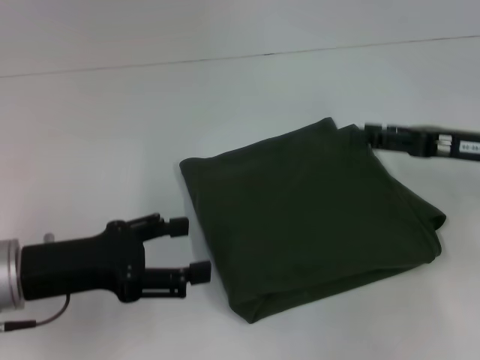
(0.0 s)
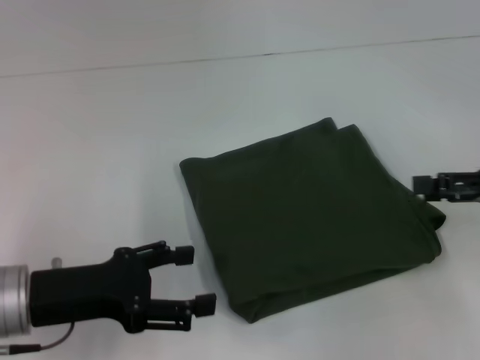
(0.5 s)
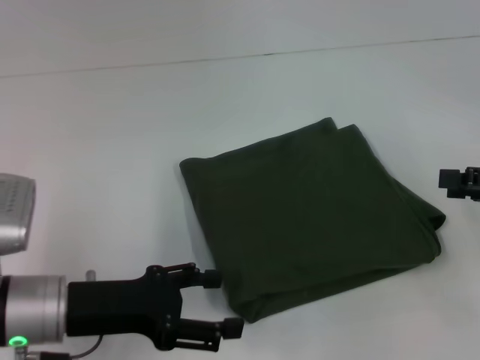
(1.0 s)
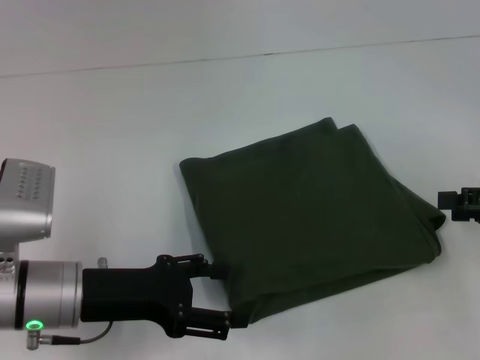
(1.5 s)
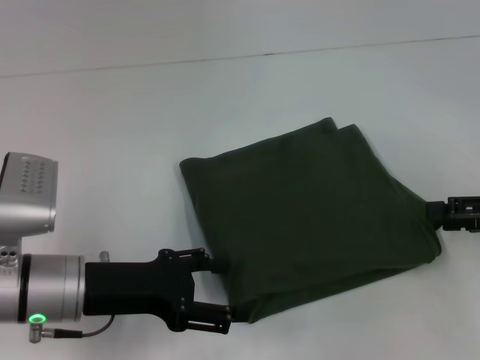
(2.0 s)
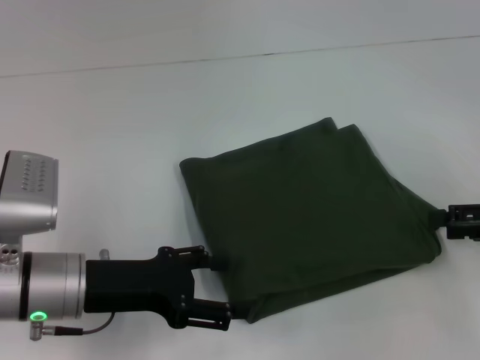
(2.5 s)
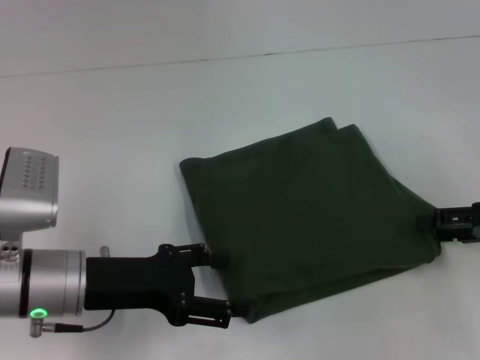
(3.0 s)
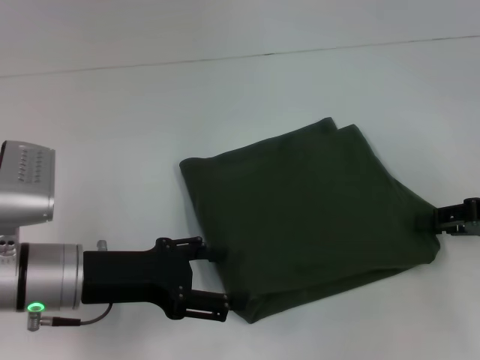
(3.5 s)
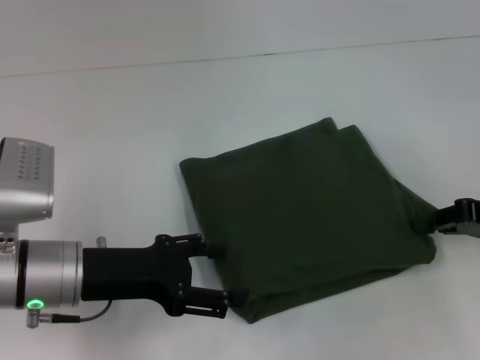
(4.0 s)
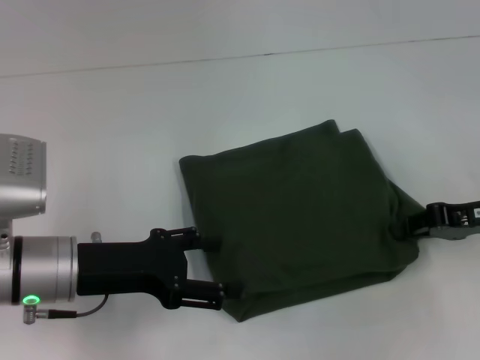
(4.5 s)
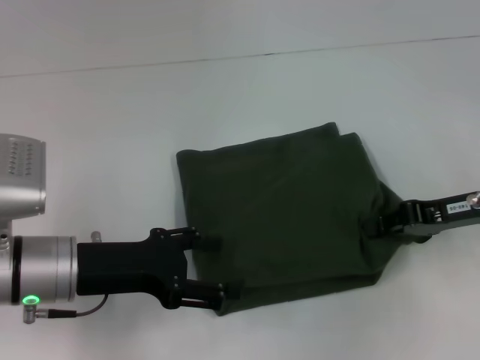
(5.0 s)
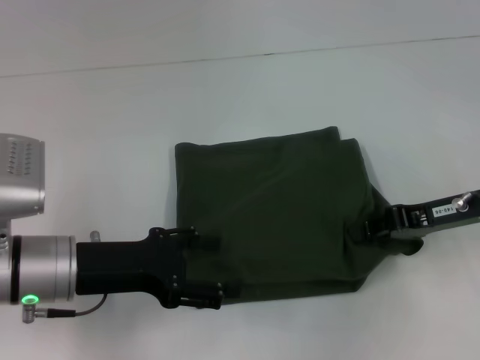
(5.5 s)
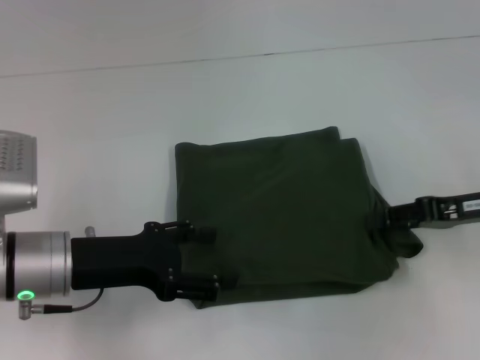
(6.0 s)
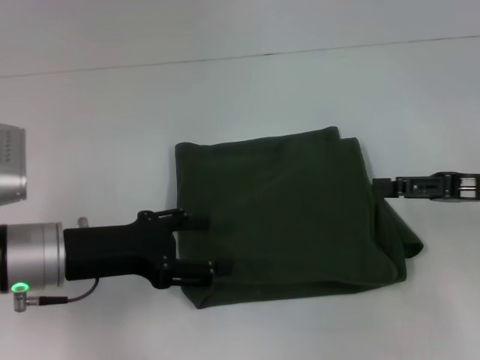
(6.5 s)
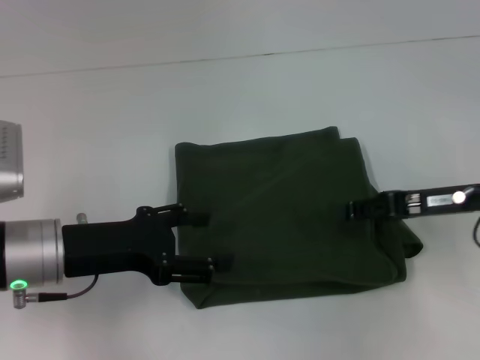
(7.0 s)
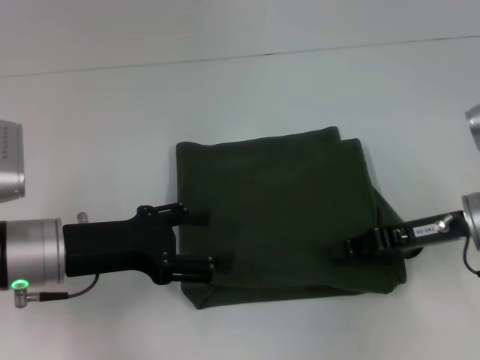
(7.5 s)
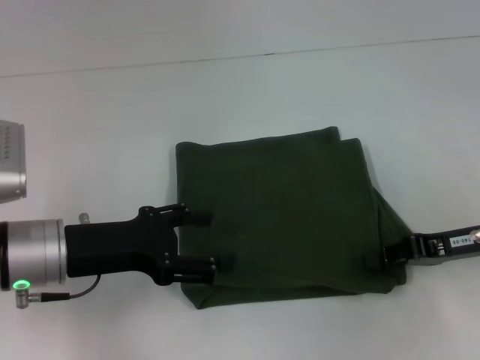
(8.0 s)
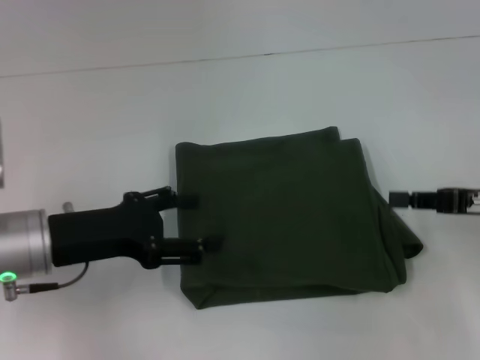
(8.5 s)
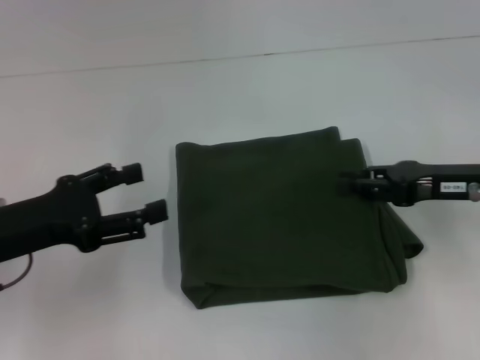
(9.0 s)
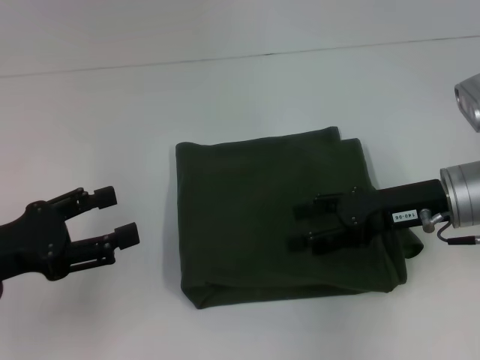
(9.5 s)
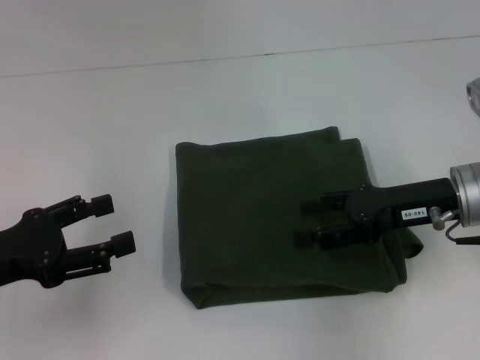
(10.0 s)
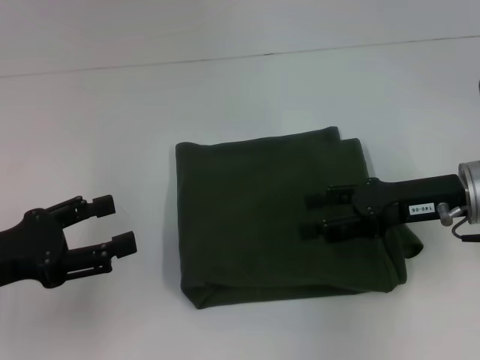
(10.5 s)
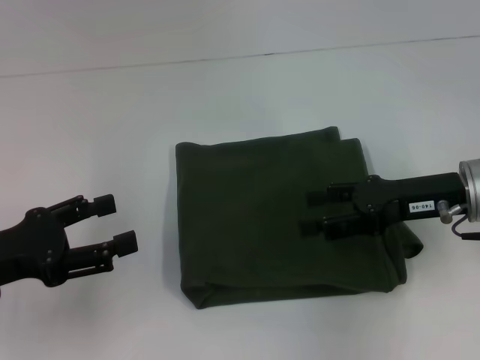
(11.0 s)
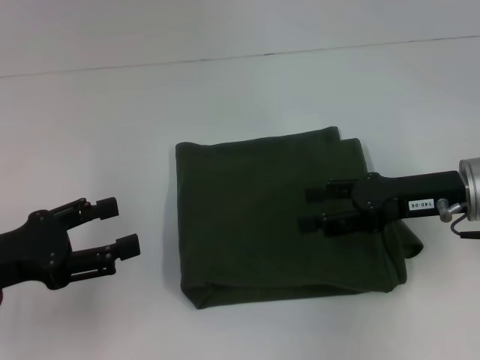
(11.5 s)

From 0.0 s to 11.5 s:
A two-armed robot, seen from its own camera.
From 0.0 s to 2.0 s: The right gripper shifts approximately 5 cm to the right.
From 2.0 s to 4.0 s: The right gripper closes up.
From 6.0 s to 7.5 s: The right gripper changes place by some 5 cm, and opens and closes again.
From 7.5 s to 9.5 s: The left gripper goes roughly 10 cm to the left, while the right gripper travels to the right and back again, some 5 cm each way, and opens up.
From 9.5 s to 11.5 s: There are only small adjustments of the grippers.

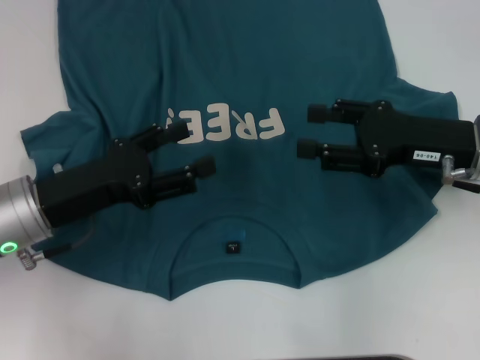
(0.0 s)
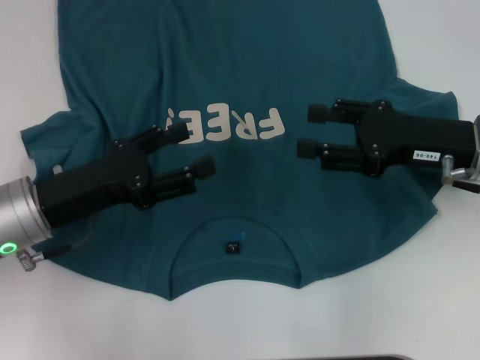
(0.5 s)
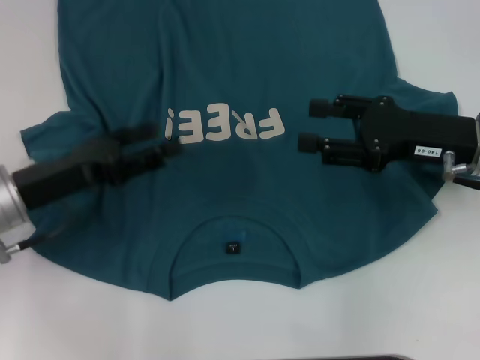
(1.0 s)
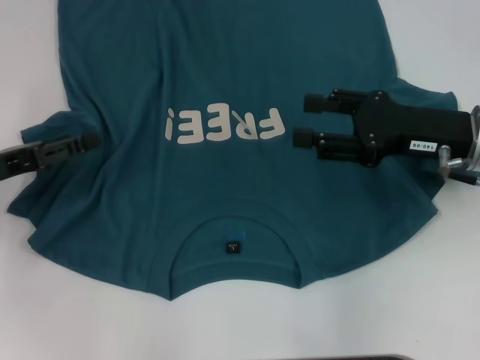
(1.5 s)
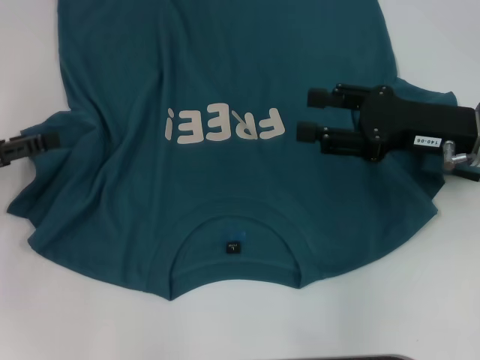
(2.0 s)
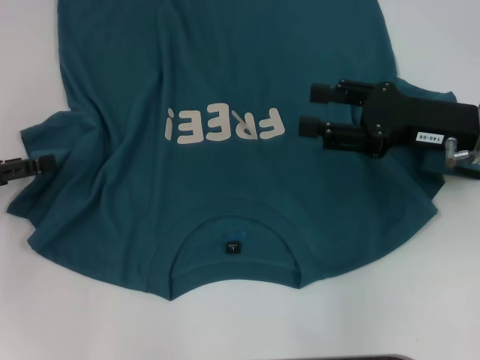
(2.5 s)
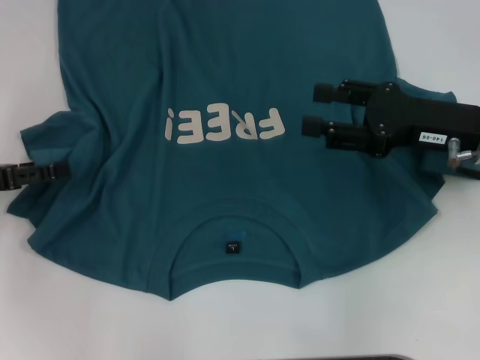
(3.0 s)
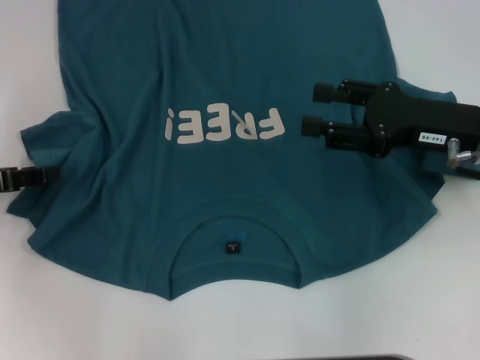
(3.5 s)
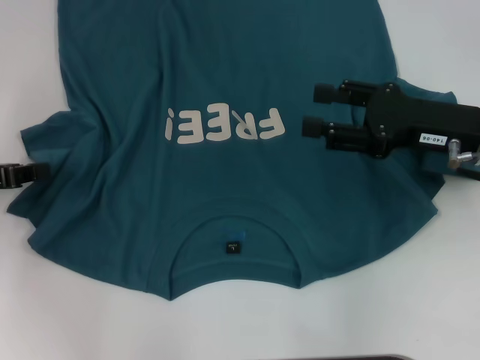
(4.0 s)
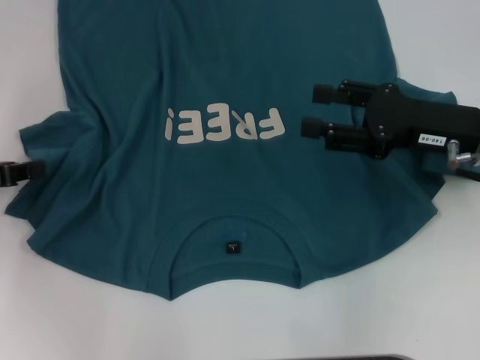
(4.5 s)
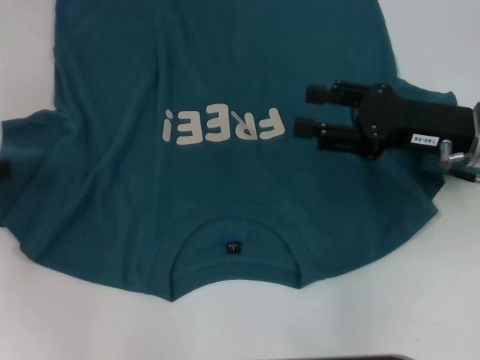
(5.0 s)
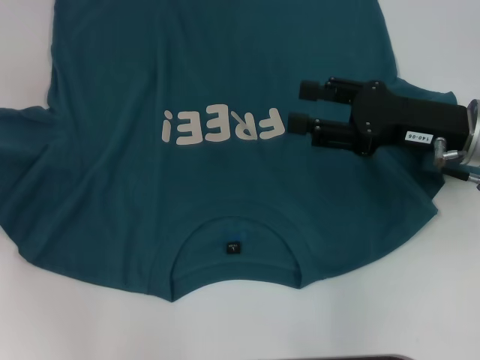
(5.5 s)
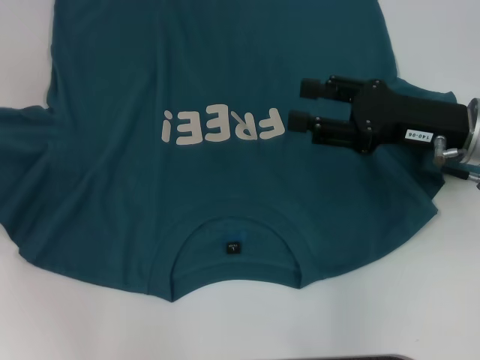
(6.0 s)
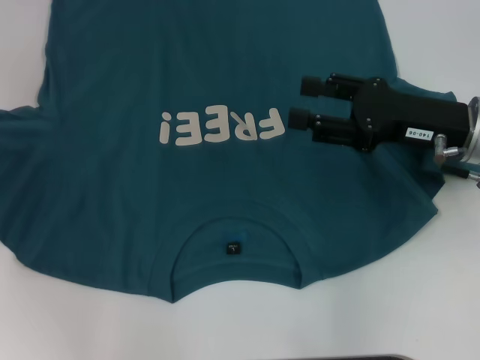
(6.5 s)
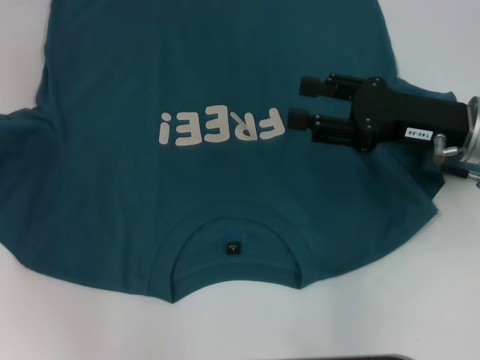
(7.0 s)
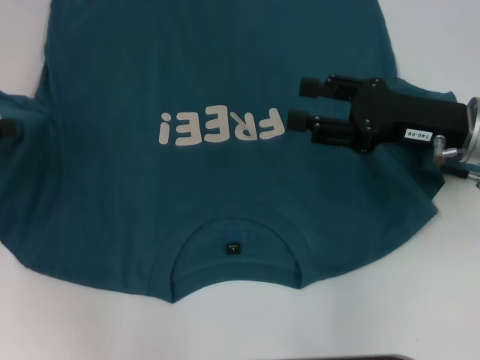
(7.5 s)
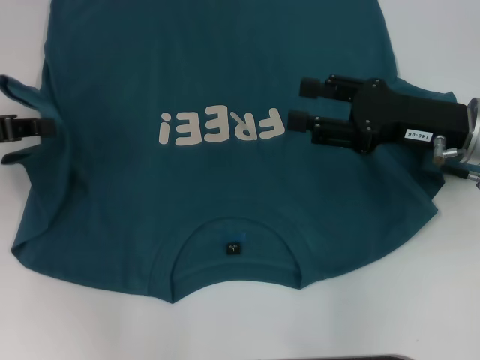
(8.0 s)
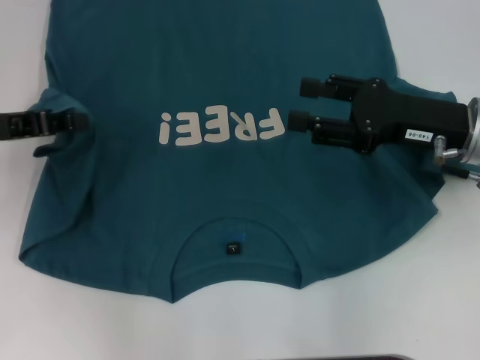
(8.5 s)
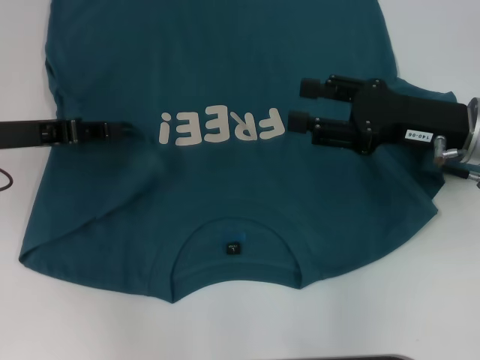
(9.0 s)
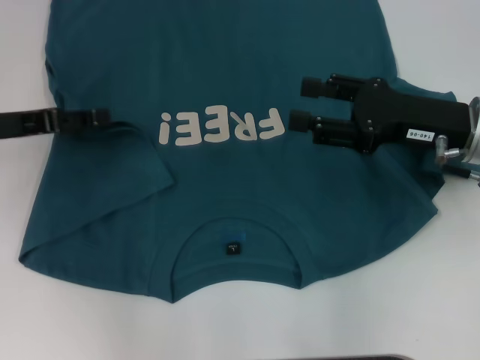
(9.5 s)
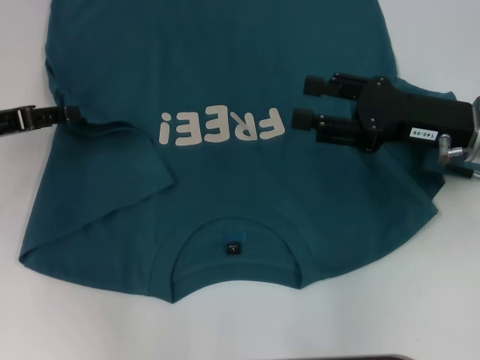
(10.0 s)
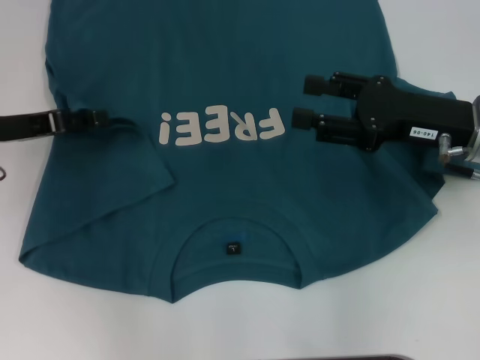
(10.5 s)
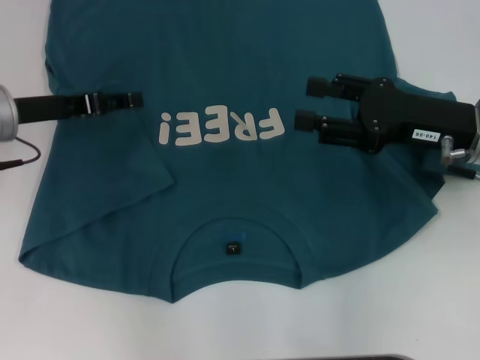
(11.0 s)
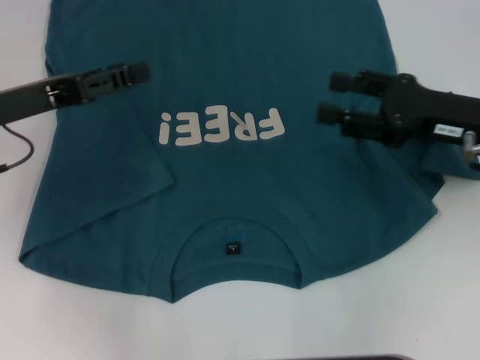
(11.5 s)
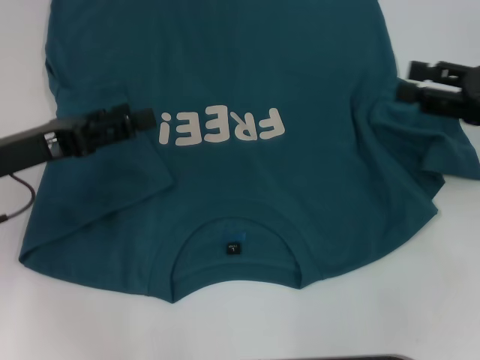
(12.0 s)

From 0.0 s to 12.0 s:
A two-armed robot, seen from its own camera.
Step, from 0.0 s to 10.5 s: Fold the bottom left sleeve with your left hand.
From 0.0 s to 2.0 s: The left gripper is displaced to the left by some 10 cm.
From 2.0 s to 4.0 s: The left gripper closes its fingers.
From 4.0 s to 6.0 s: The left gripper moves to the left, some 5 cm.
From 6.0 s to 8.0 s: The left gripper heads to the right, covering some 5 cm.
From 8.0 s to 10.0 s: The left gripper opens its fingers.
From 10.0 s to 12.0 s: The left gripper changes place by some 5 cm; the right gripper travels to the right by about 10 cm.

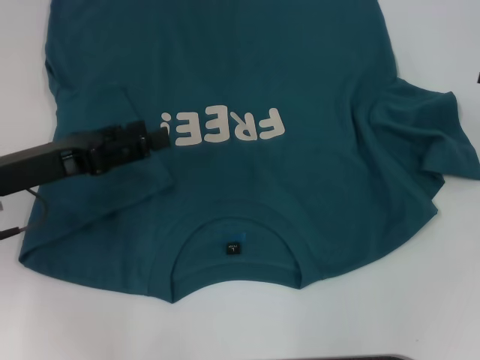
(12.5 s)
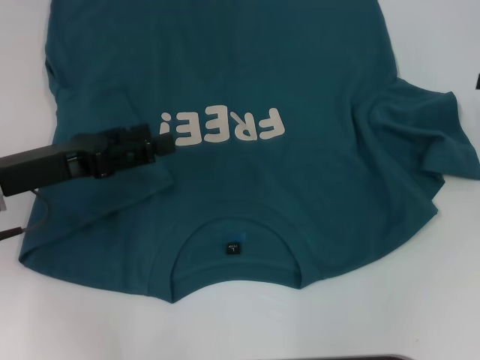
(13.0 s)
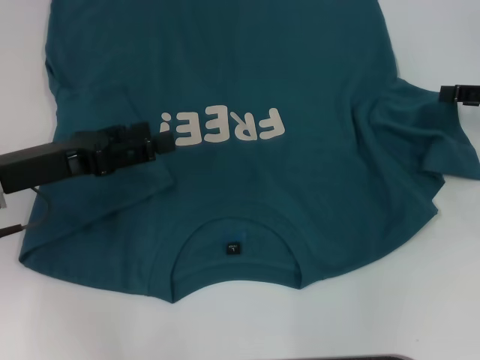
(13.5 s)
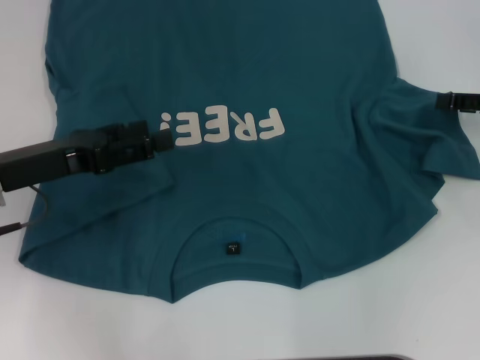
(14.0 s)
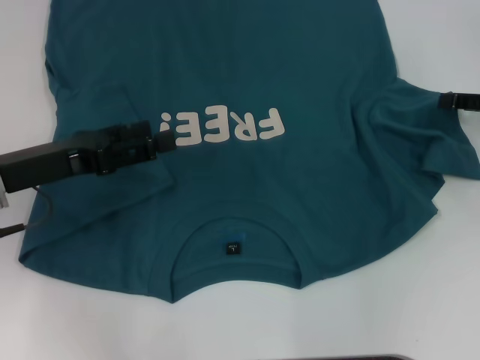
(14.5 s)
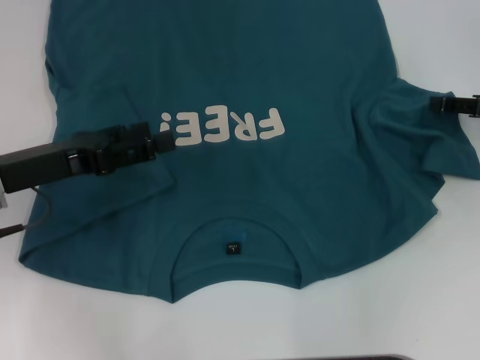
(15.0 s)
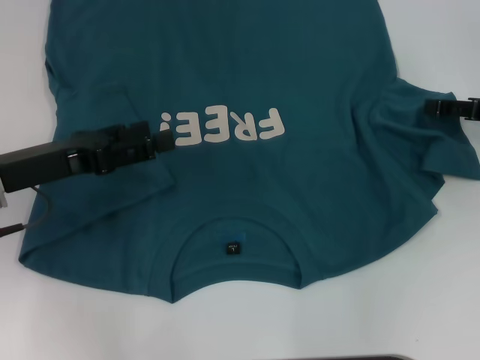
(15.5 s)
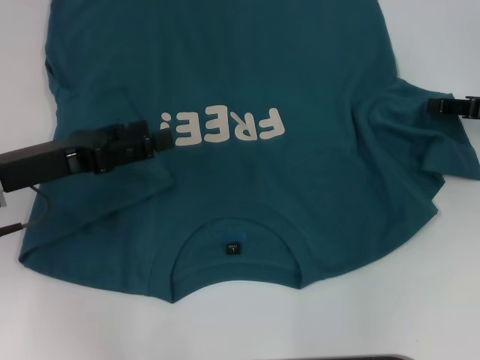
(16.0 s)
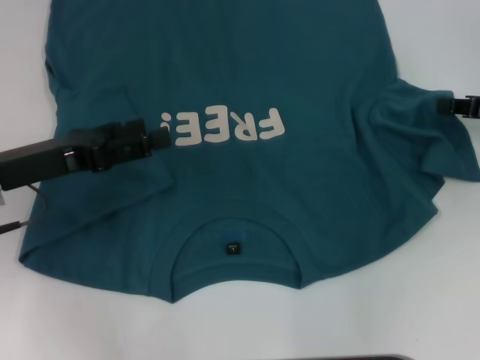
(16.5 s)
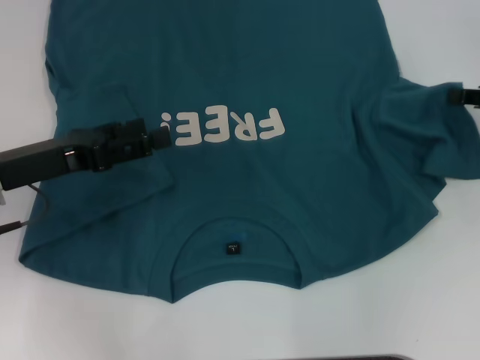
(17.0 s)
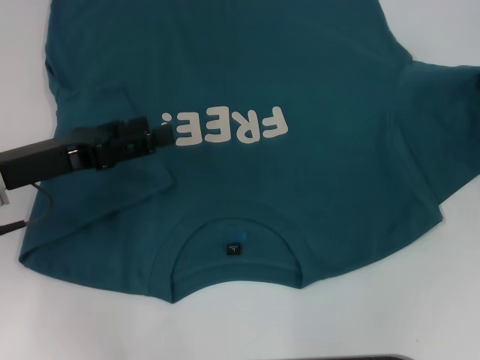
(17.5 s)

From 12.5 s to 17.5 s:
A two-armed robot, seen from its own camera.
From 12.5 s to 15.0 s: The right gripper shifts by about 5 cm.
From 15.0 s to 17.5 s: The right gripper closes its fingers.
